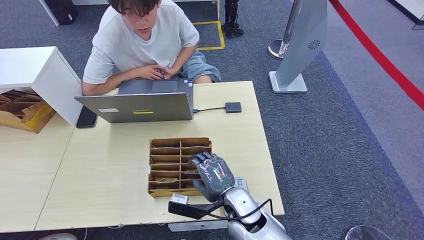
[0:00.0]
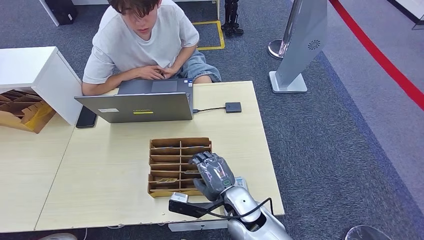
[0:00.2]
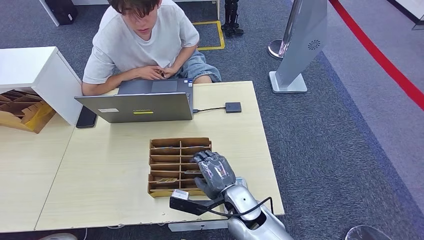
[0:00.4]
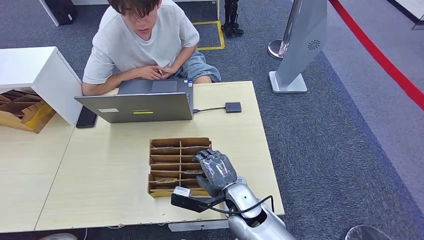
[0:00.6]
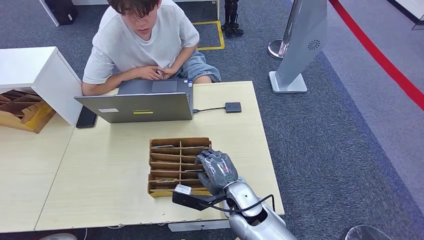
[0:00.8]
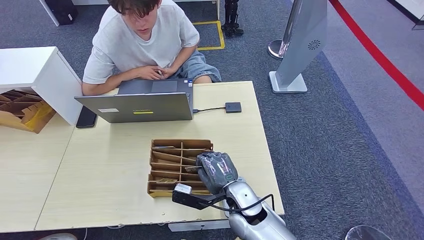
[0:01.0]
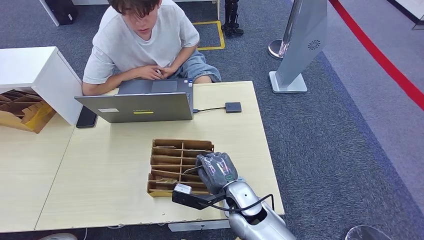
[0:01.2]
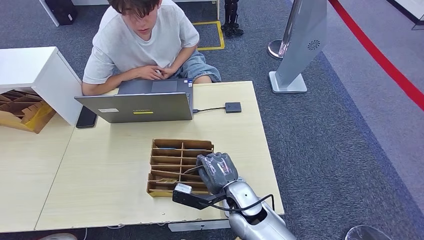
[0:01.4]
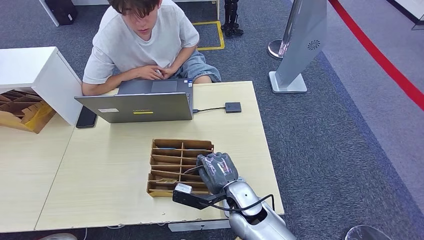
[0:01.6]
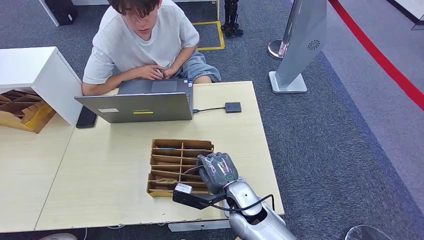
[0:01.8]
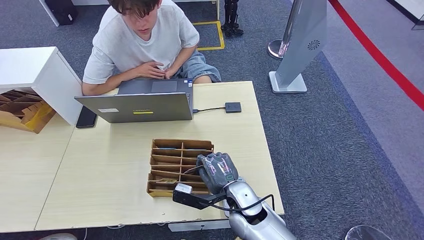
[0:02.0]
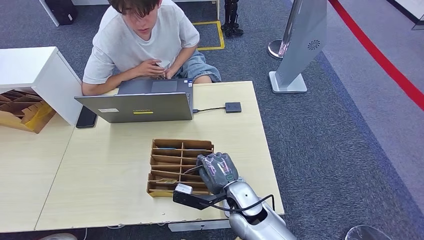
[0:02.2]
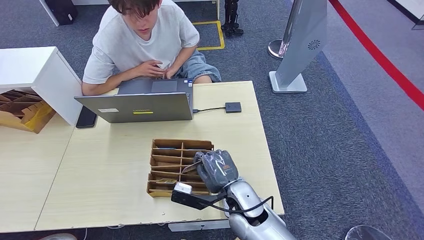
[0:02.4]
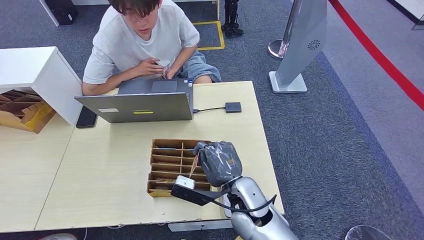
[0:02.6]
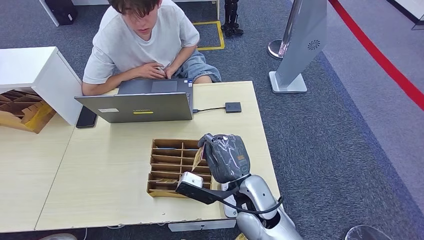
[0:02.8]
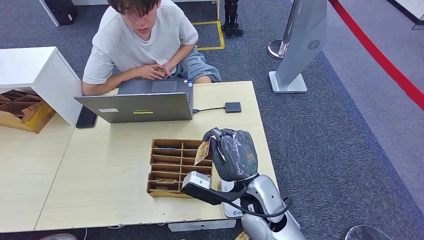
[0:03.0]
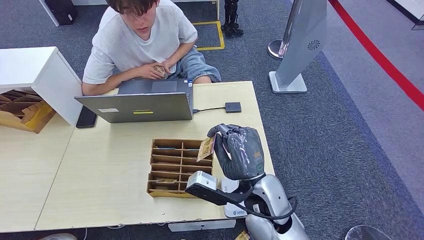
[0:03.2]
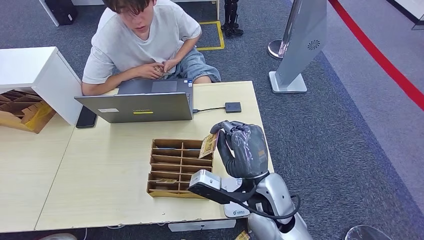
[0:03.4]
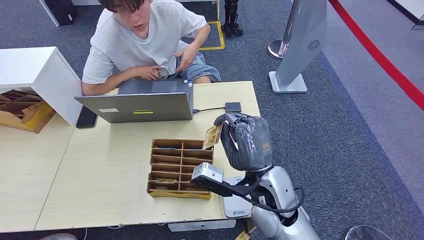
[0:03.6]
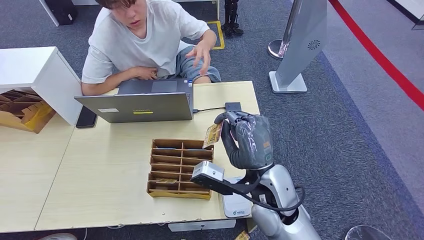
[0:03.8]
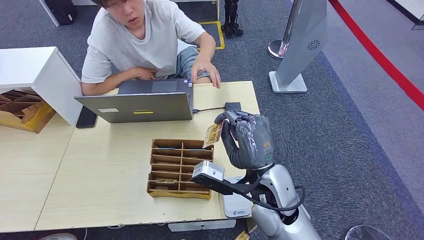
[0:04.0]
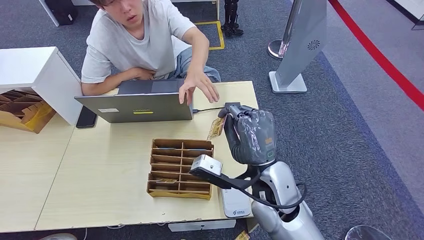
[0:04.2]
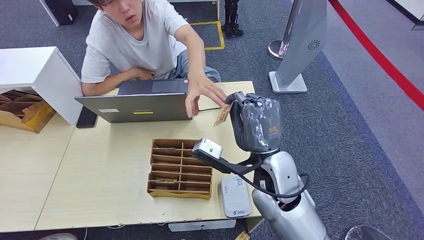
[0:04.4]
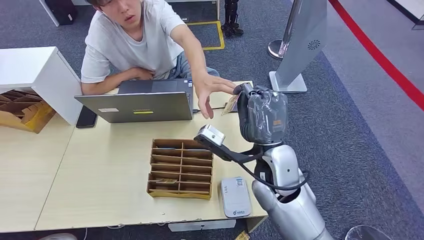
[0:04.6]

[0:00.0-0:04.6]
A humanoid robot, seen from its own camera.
Step, 0:01.8 to 0:04.4: Hand the room key to the person.
0:00.0 to 0:01.6: The hands stay close to where they were, moving slightly.
0:01.6 to 0:03.0: The right hand is displaced upward by roughly 10 cm.
0:03.0 to 0:04.6: The right hand heads upward, covering about 5 cm.
